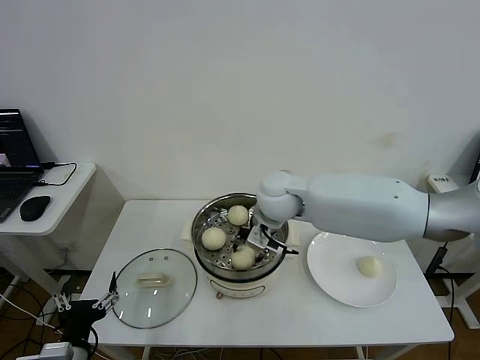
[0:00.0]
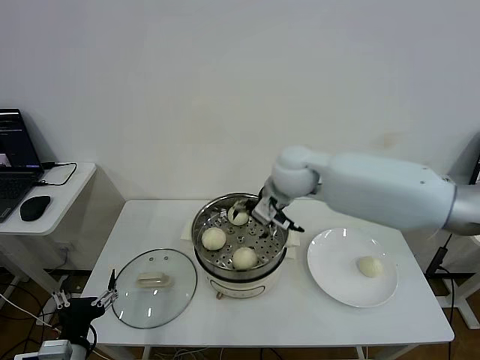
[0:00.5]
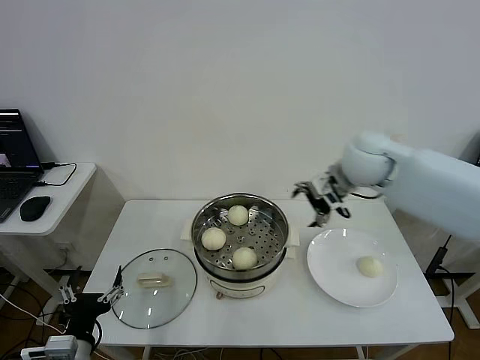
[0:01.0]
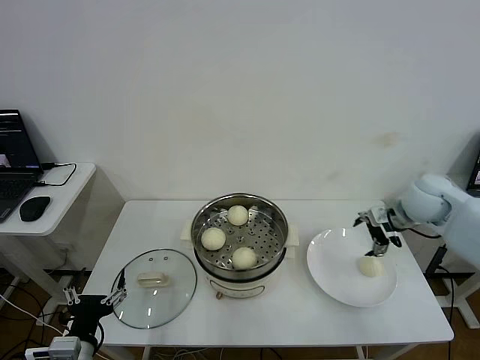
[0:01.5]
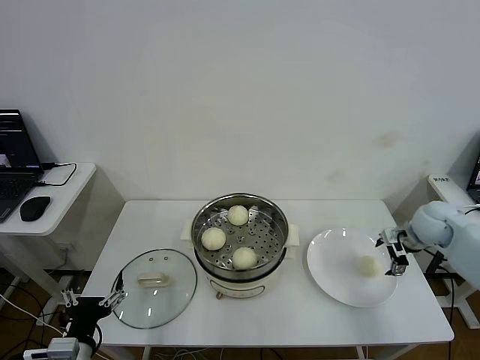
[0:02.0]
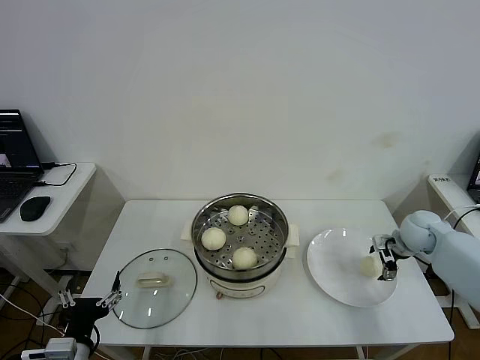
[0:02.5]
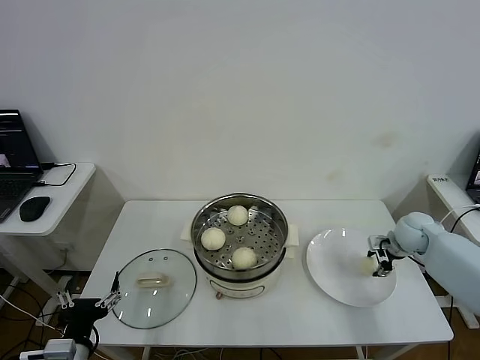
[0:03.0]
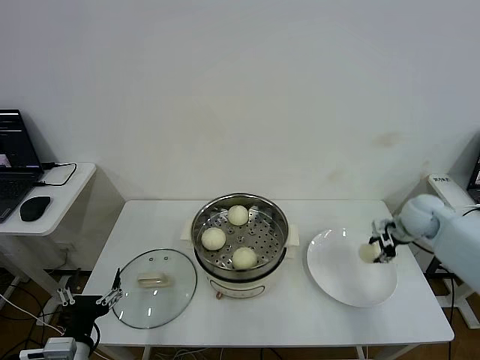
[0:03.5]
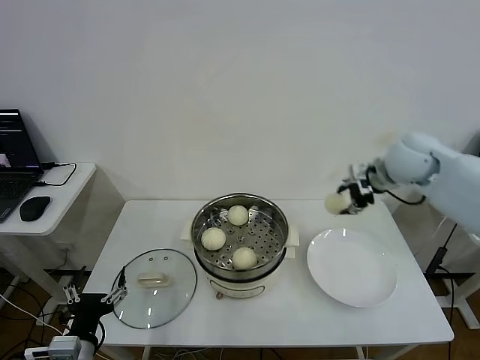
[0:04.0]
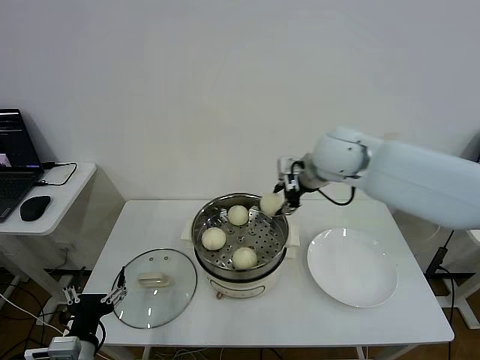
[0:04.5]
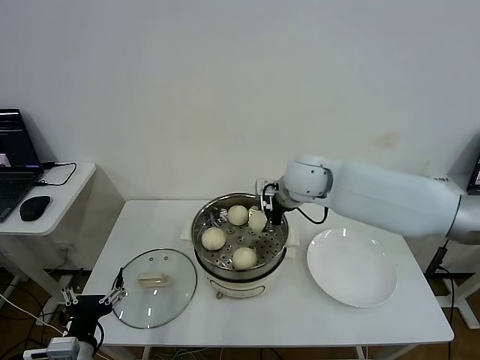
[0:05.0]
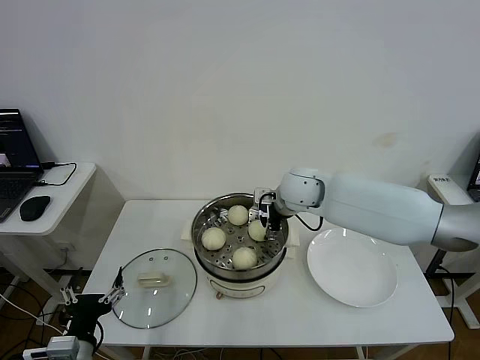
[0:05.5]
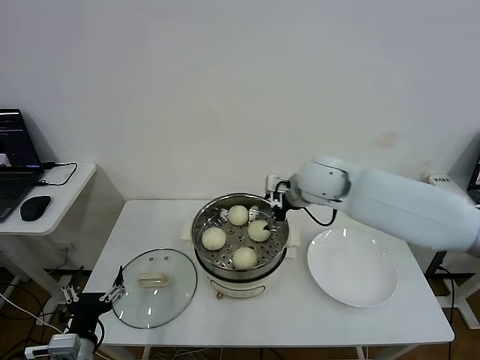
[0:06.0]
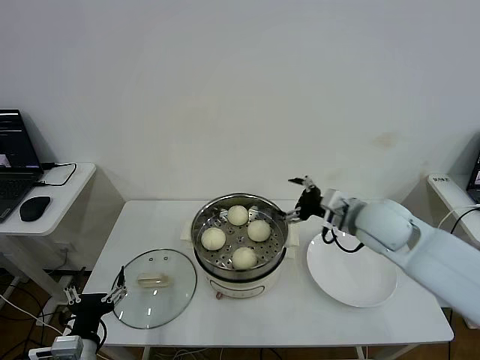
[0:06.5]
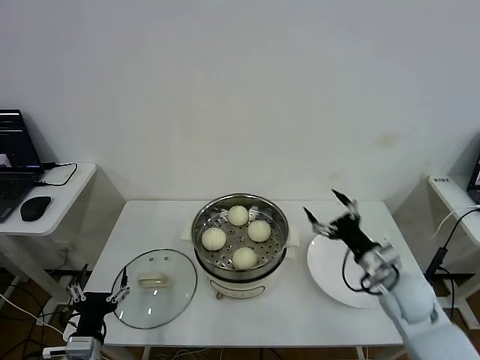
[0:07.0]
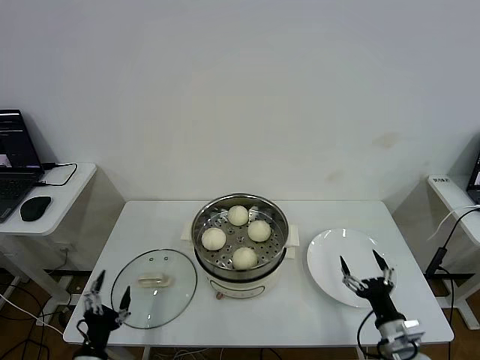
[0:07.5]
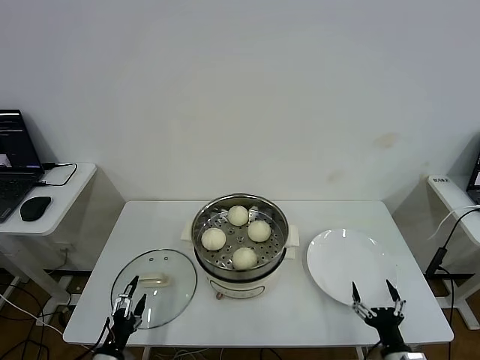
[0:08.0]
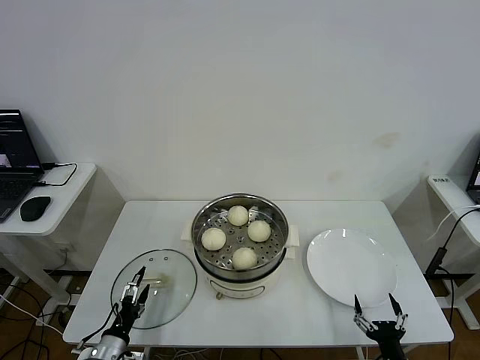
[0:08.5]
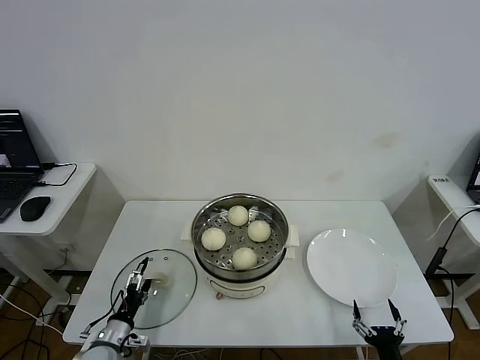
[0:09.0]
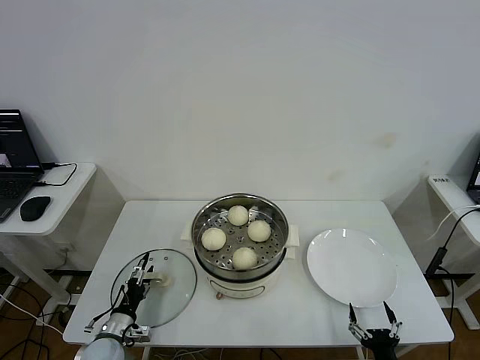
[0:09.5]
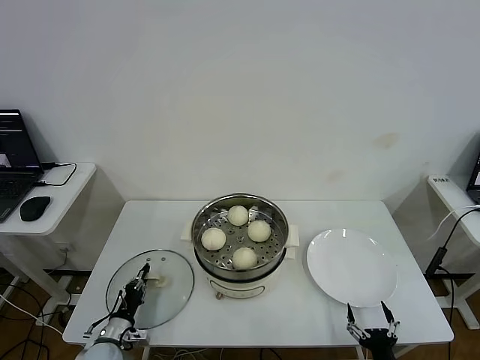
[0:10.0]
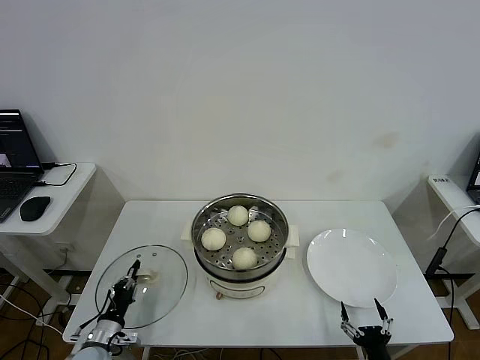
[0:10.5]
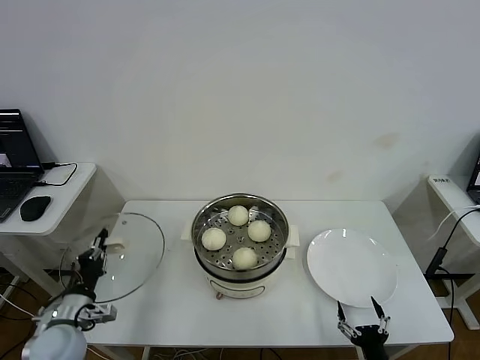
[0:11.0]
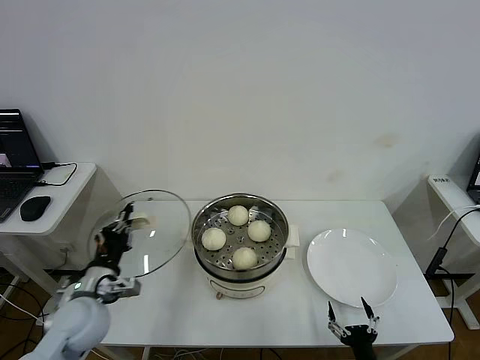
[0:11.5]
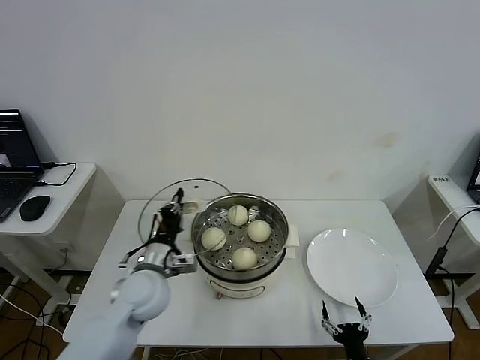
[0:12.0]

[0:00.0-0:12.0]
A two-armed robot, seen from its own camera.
Step, 0:00.5 to 0:02.5: Grasp the baozi in the plate with right gripper.
Step, 0:03.5 to 0:05.5: Place the baozi on the steamer with right gripper.
Step, 0:06.0 to 0:10.0: Grasp the pot lid with left gripper.
0:00.0 to 0:02.0: The right gripper travels to the right by about 35 cm, and opens its fingers.
0:02.0 to 0:04.0: The right gripper goes about 20 cm upward and to the left, and closes its fingers.
0:04.0 to 0:06.0: The right gripper shifts roughly 20 cm to the left, and opens.
0:06.0 to 0:08.0: The right gripper shifts roughly 50 cm backward, downward and to the right. Meanwhile the left gripper shifts approximately 10 cm downward.
0:08.0 to 0:10.0: The left gripper shifts some 15 cm forward and downward, and closes up. The right gripper ends up approximately 5 cm from where it was.
0:10.0 to 0:12.0: The left gripper goes about 25 cm upward and to the right, while the right gripper shifts by roughly 5 cm.

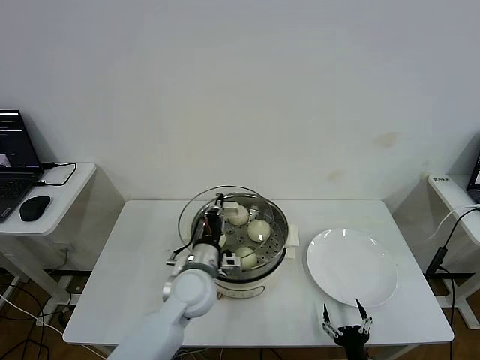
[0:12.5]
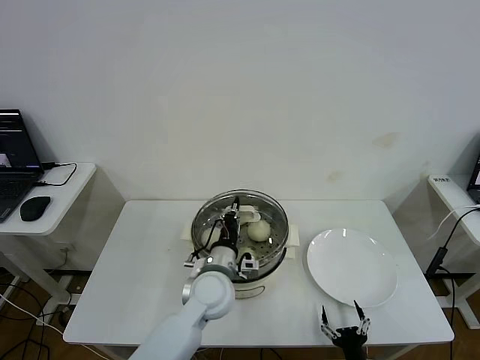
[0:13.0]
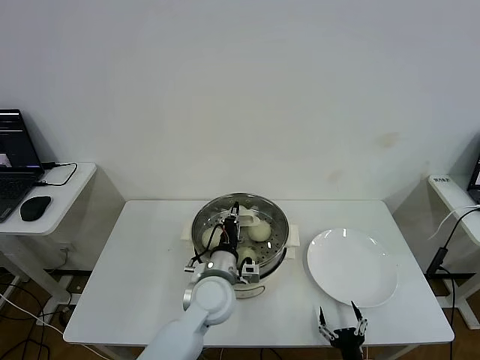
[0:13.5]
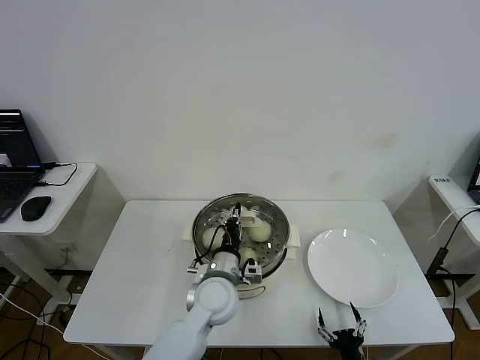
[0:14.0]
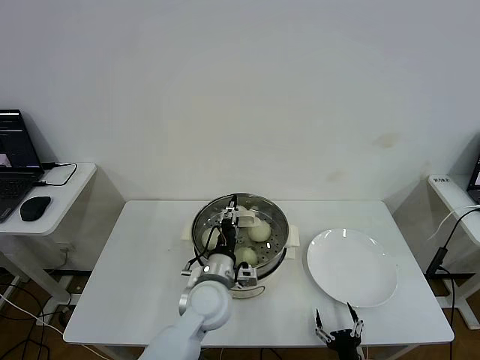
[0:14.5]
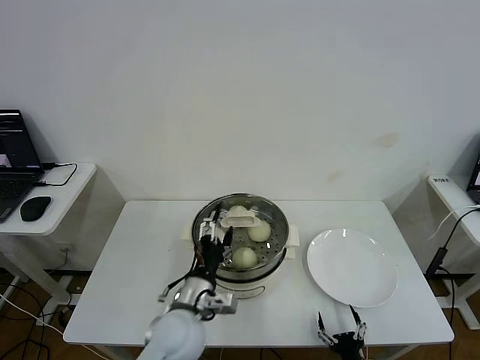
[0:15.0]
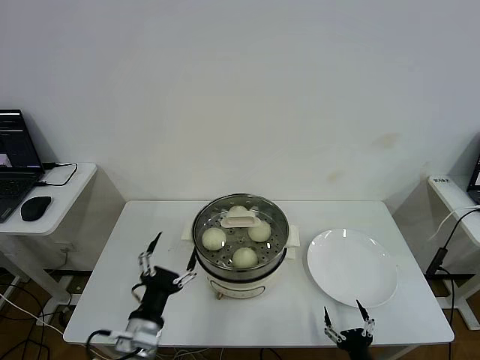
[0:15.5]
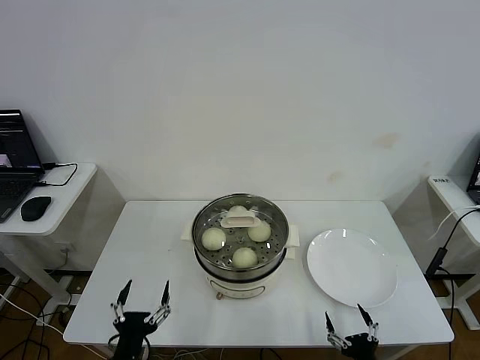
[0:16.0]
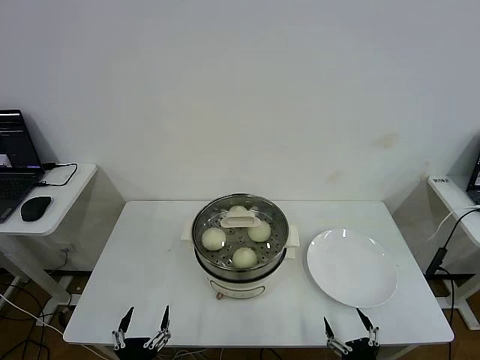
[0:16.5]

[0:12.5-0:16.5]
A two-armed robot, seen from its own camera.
Step, 0:12.5 to 0:14.5: Place the pot lid on the steamer with left gripper.
0:12.5 to 0:14.5: The left gripper shifts by about 5 cm, and opens up.
0:14.5 to 0:16.5: The right gripper moves upward, approximately 10 cm. Meanwhile the left gripper moves backward and to the left, approximately 30 cm, and opens.
